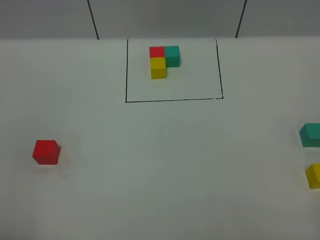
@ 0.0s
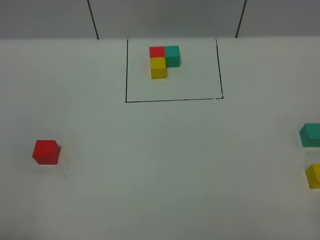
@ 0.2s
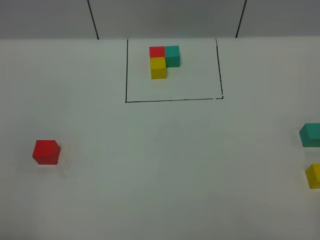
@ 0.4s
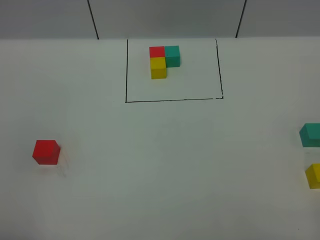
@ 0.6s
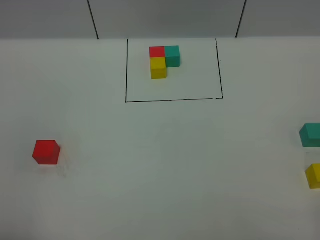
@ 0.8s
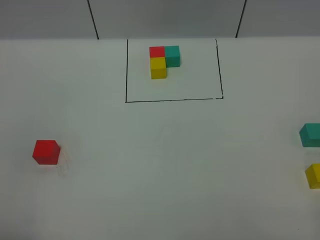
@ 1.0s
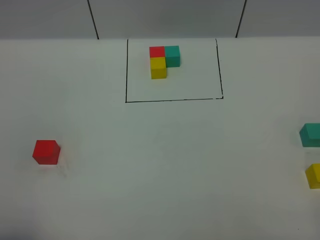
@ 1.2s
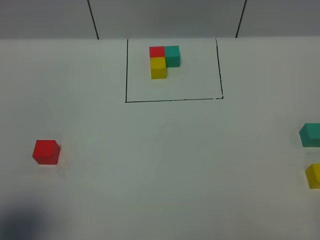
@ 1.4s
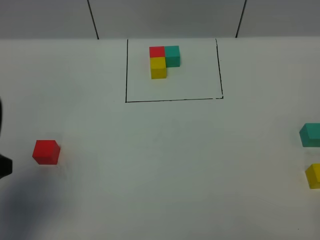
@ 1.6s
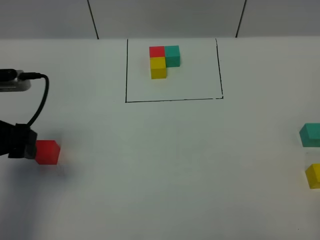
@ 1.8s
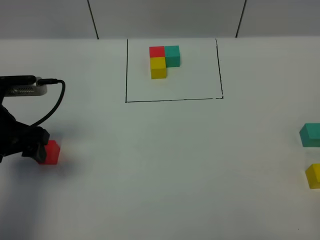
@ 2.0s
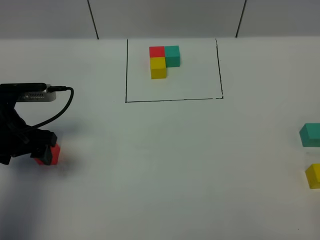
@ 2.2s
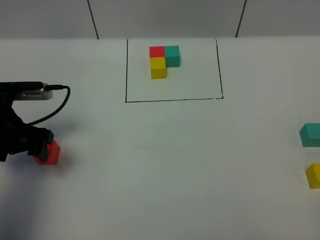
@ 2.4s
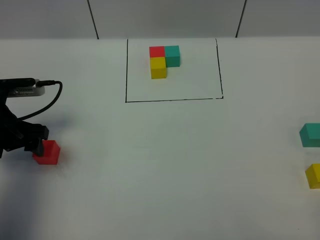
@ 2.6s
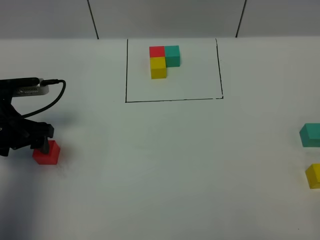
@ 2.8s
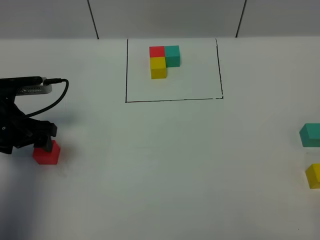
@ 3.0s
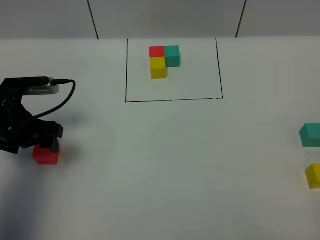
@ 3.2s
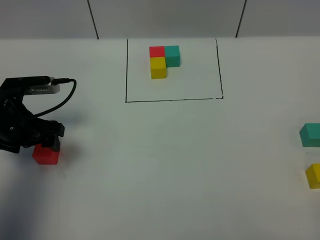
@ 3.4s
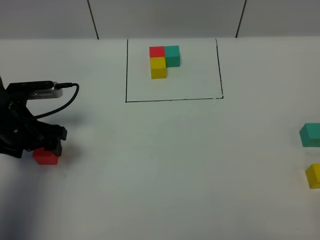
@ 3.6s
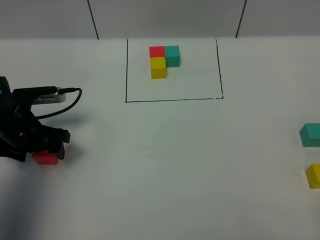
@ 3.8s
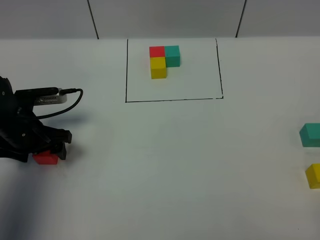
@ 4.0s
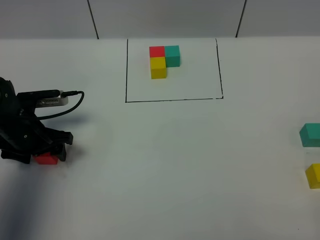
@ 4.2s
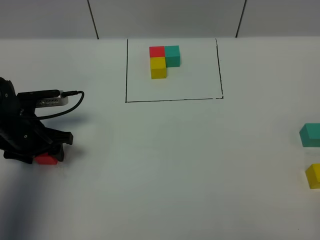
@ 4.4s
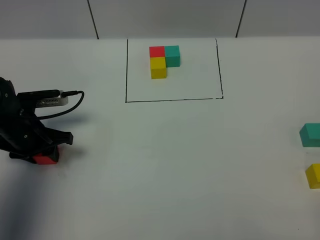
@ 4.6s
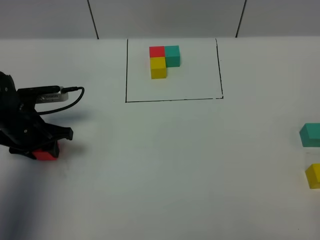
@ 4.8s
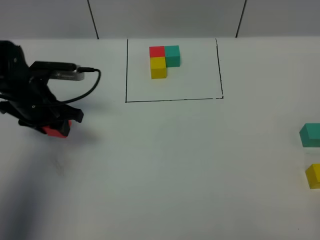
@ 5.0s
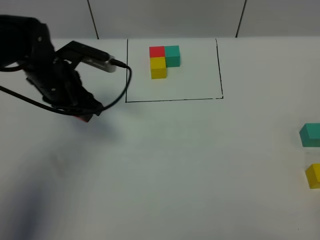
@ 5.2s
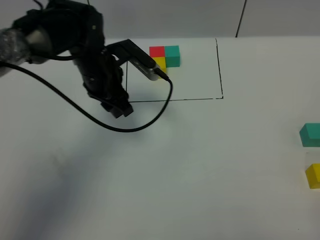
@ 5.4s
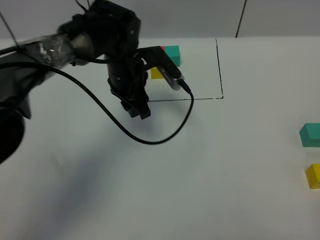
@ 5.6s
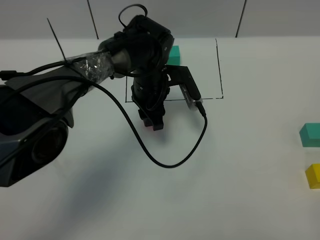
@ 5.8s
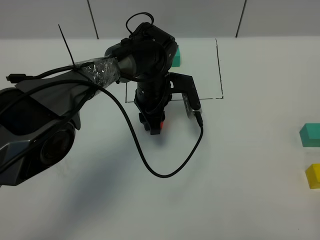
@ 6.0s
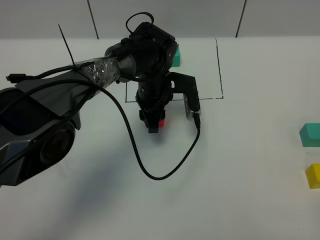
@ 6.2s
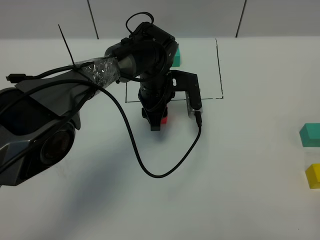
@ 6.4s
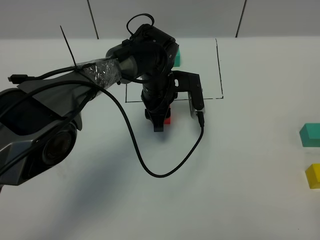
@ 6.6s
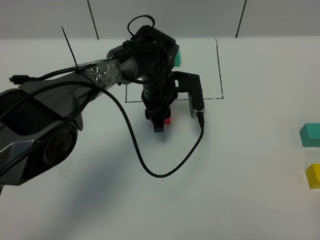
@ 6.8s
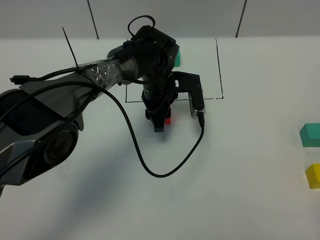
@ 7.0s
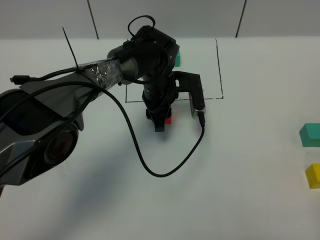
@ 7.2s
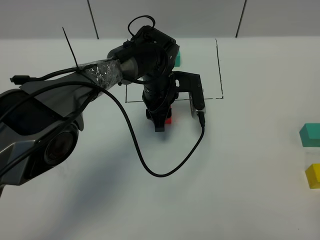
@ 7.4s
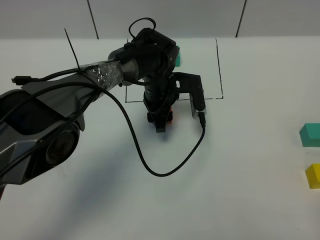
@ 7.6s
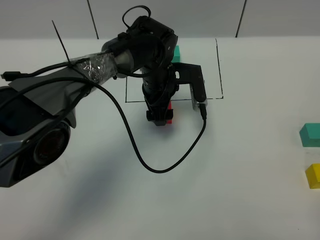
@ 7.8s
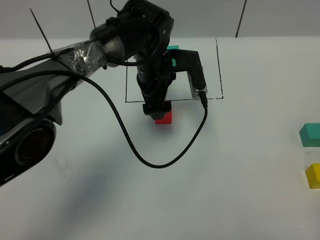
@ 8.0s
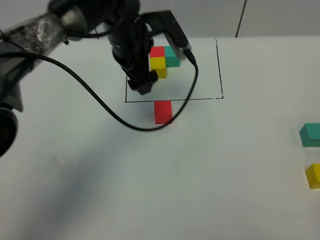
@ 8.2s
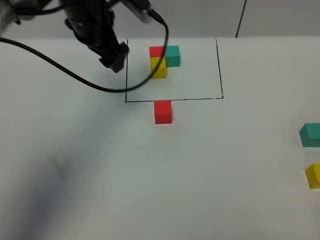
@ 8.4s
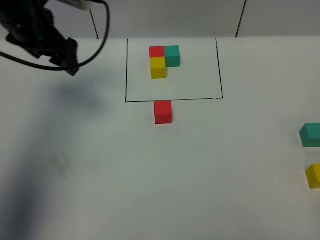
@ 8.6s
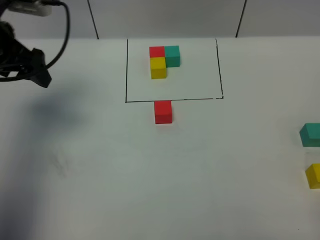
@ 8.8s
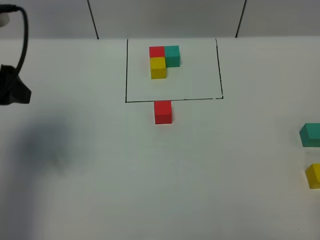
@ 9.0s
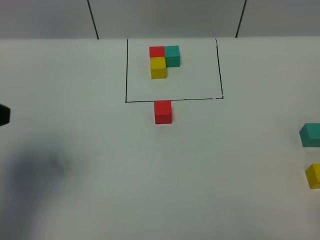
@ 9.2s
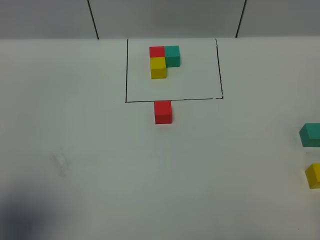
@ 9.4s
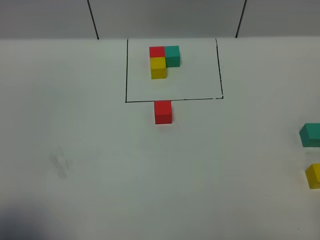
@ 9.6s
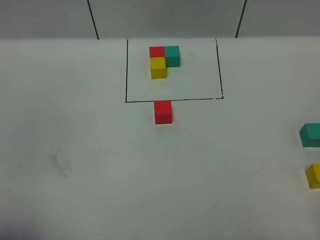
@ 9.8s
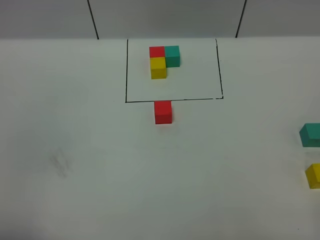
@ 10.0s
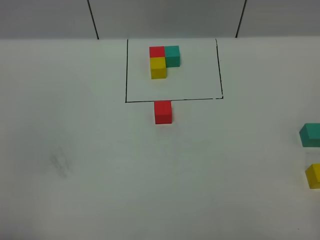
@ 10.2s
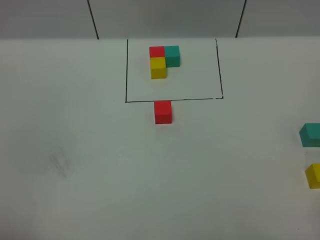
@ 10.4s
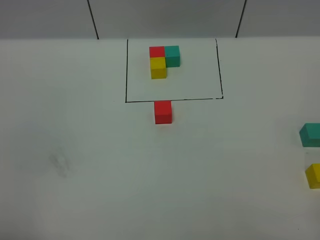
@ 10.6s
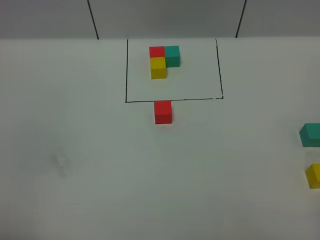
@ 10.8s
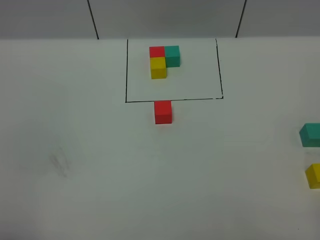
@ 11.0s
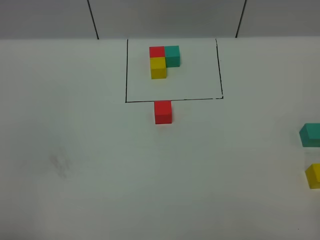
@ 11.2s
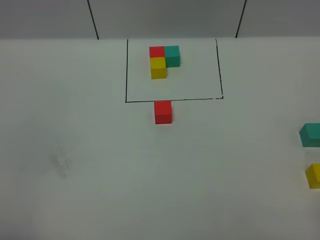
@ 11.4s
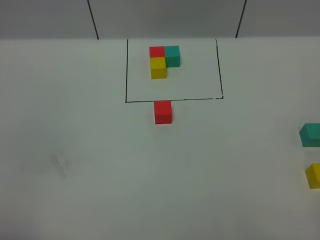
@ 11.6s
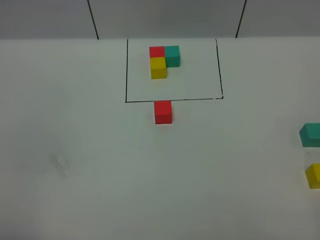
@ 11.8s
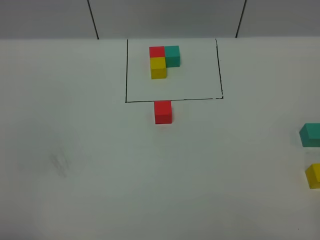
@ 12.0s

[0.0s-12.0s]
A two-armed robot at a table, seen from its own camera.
Task of the whole recording: According to the building block template in front, assemble the scattered blocks together.
Step, 0.0s to 7.6s: Put the red build block in the center of the table.
0.0s to 1.6s: The left gripper heads forward, covering approximately 15 cm.
1.6s to 3.0s: The left gripper moves forward and downward, roughly 20 cm.
3.0s to 4.4s: The grippers make only small movements.
4.4s to 6.0s: The left gripper shifts approximately 25 cm to the right and forward, and closes.
6.0s to 7.6s: The left gripper opens its fingers.
7.6s to 9.0s: The left gripper is displaced to the left, upward and backward by some 40 cm, and opens its fingers.
9.0s to 10.4s: The left gripper goes approximately 25 cm backward.
10.4s to 12.0s: The two grippers keep their place.

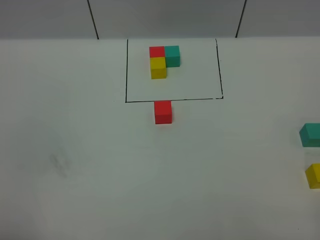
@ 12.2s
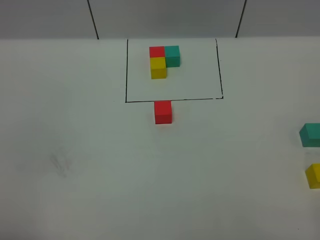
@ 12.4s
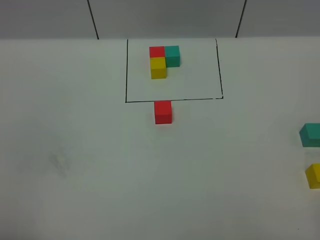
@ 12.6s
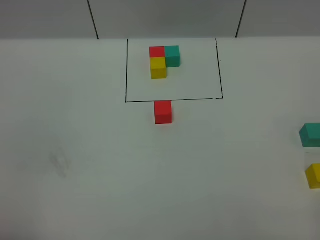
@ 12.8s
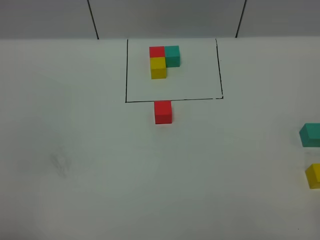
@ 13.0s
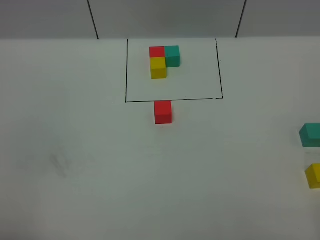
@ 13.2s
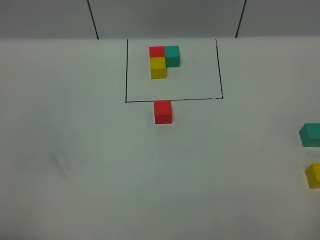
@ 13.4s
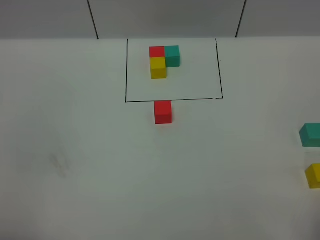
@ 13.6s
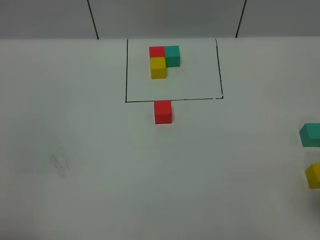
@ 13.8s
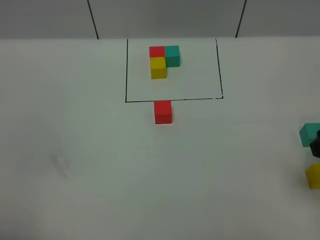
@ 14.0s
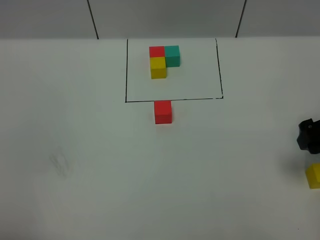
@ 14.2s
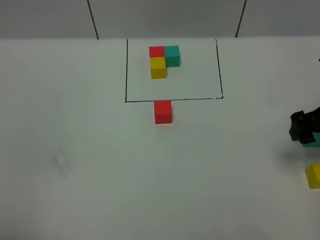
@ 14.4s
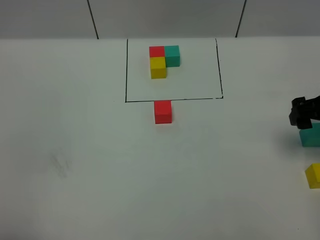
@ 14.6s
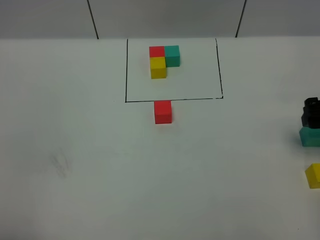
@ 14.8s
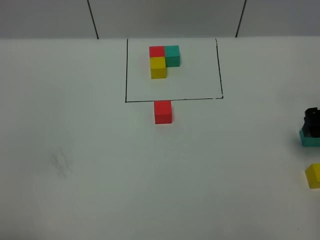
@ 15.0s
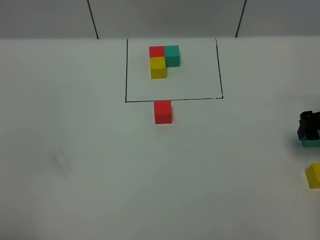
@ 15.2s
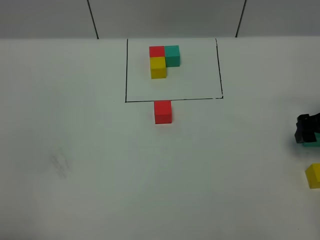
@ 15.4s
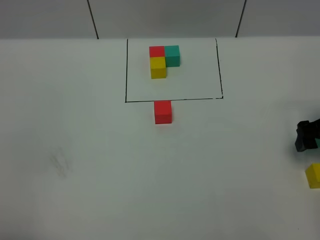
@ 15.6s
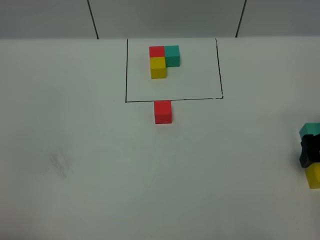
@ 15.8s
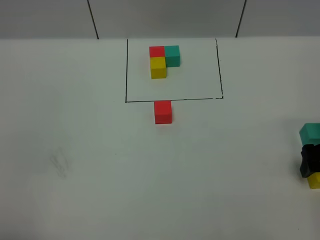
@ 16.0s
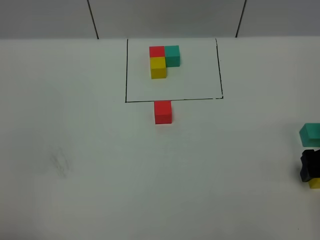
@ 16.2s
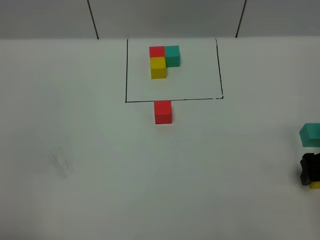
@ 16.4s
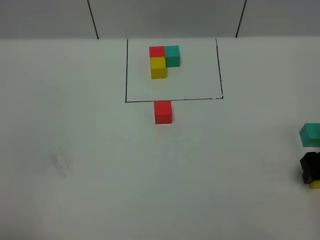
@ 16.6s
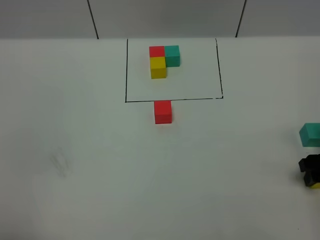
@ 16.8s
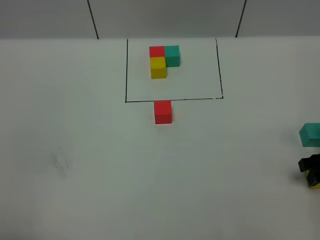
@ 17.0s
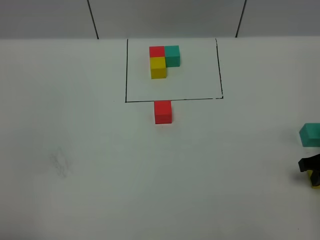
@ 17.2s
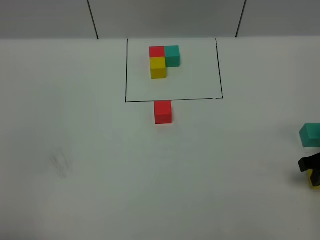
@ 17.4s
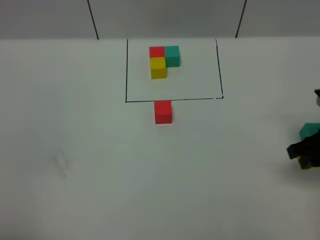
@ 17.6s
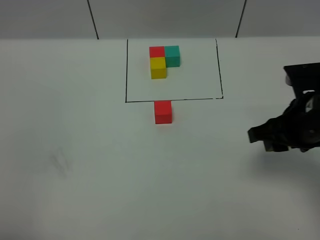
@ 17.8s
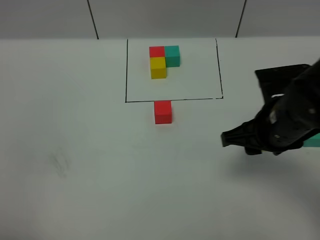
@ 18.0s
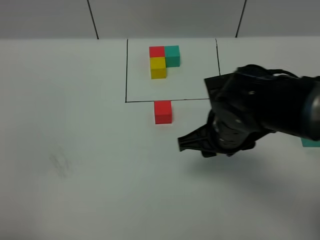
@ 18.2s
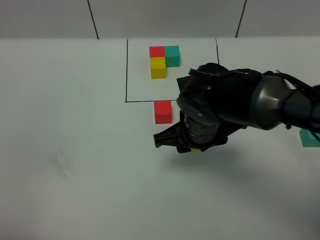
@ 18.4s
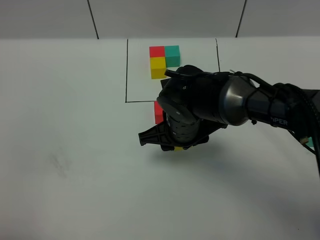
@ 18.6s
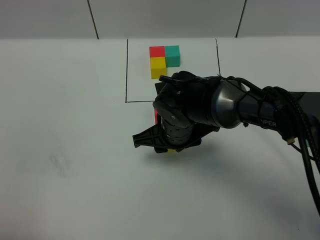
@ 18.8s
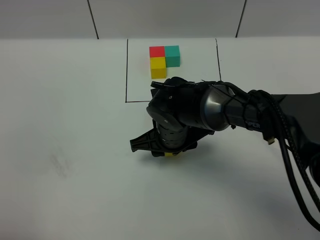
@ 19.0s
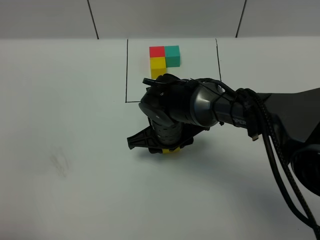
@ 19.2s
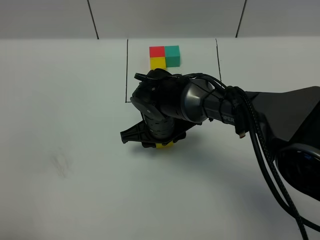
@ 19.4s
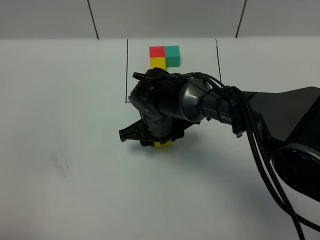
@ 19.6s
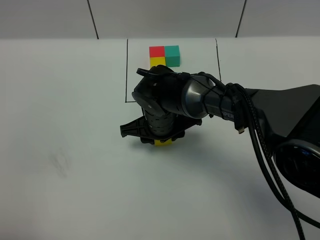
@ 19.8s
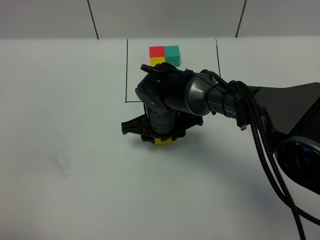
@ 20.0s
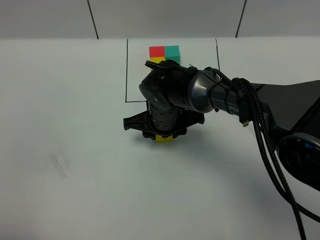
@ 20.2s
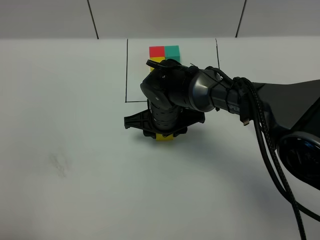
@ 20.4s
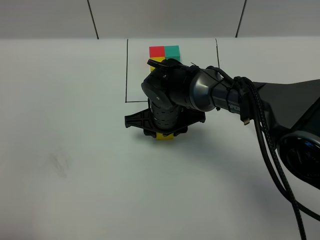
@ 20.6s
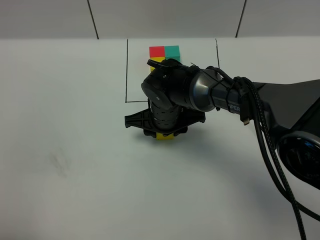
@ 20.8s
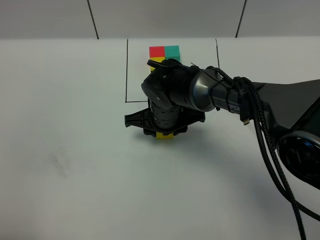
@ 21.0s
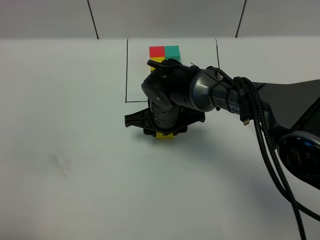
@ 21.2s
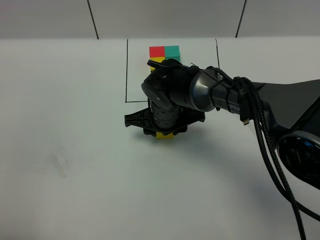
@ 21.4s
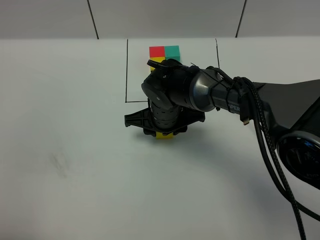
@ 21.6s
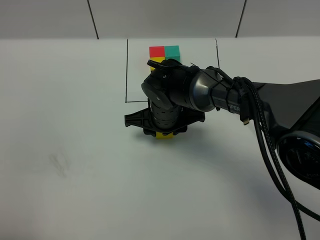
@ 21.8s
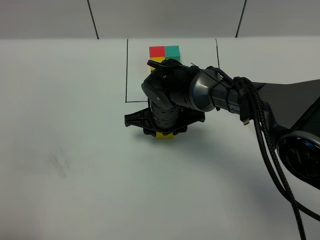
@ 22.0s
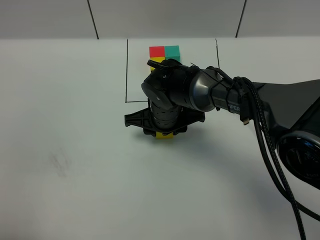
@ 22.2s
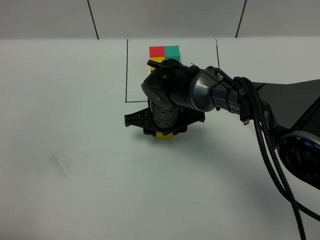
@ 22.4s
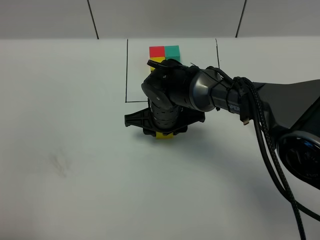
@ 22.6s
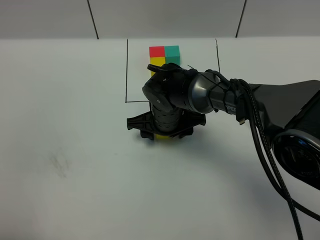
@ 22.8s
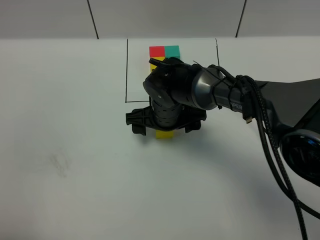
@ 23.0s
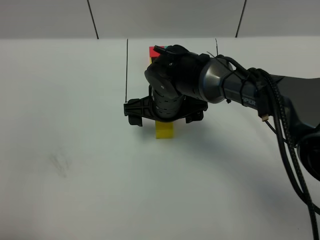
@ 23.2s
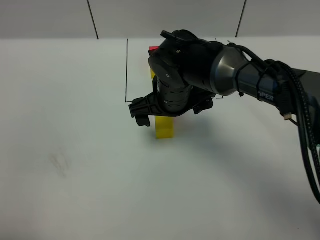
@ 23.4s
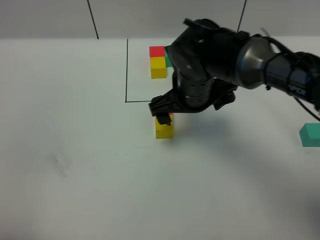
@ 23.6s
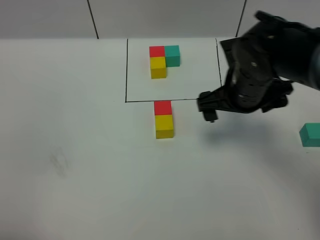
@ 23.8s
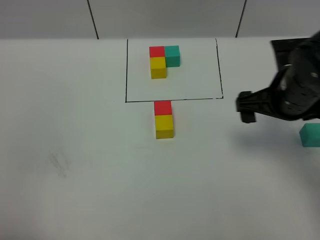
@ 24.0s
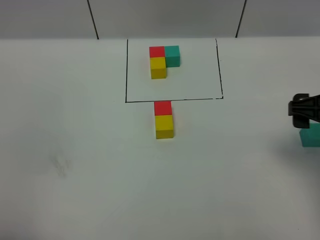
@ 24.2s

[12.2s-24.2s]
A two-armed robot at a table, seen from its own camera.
Task of the whole recording: According to the building block template in front, assemble the scattered blocks together.
Step, 12.2s to 22.8s: Put the yellow build block on the behind of the red build block.
13.8s to 15.2s: The right gripper travels forward and downward by about 20 cm.
15.2s to 16.6s: The right gripper changes place by approximately 5 cm.
16.6s to 18.2s: The right gripper shifts approximately 25 cm to the left, and closes.
18.2s to 19.8s: The right gripper goes about 15 cm to the left, downward and forward.
19.8s to 21.2s: The grippers make only small movements.
21.2s to 22.6s: Both grippers stay about where they are.
22.6s to 24.2s: The right gripper goes roughly 30 cm to the right, upward and backward, and opens its fingers.
